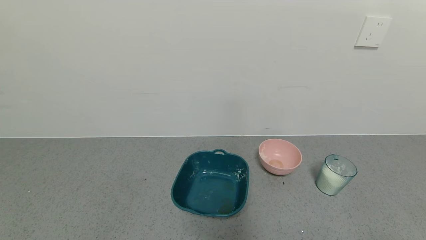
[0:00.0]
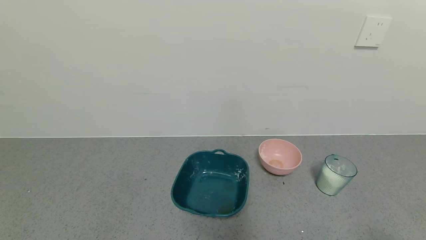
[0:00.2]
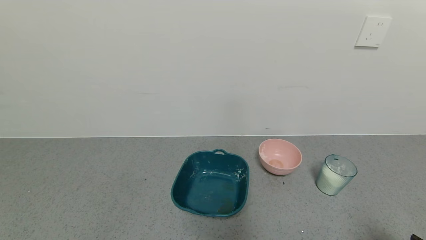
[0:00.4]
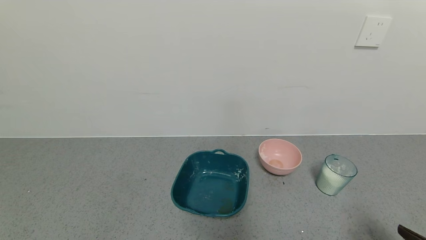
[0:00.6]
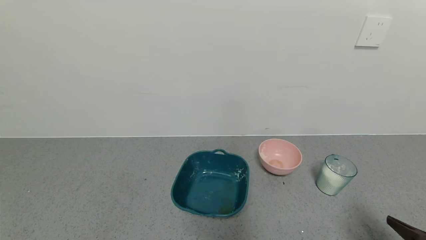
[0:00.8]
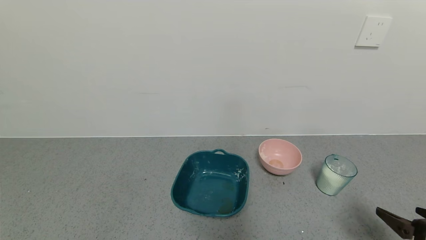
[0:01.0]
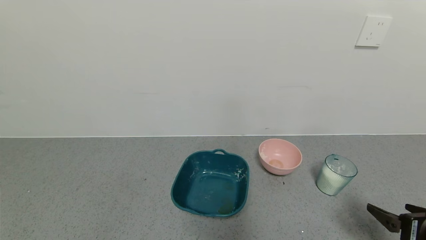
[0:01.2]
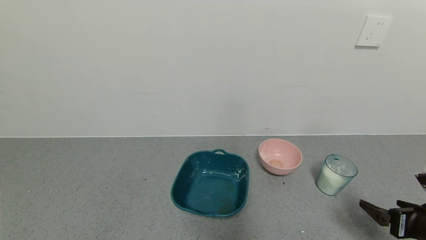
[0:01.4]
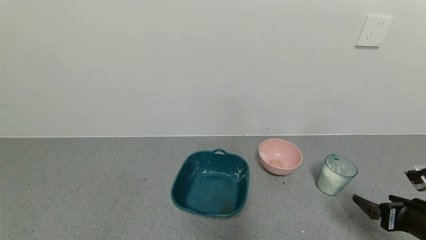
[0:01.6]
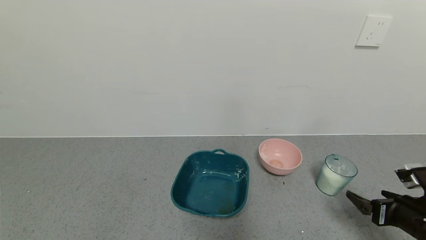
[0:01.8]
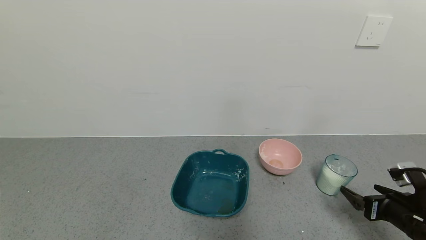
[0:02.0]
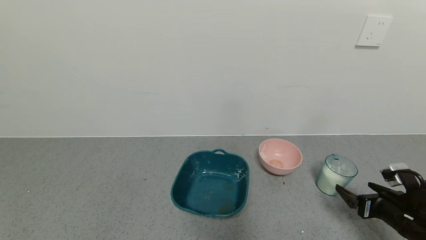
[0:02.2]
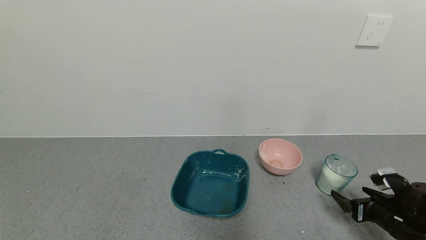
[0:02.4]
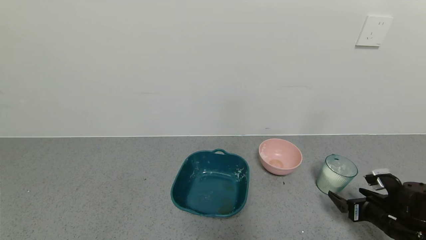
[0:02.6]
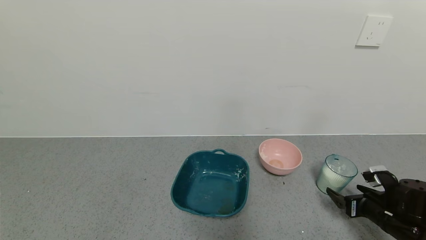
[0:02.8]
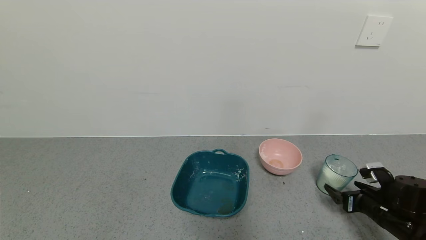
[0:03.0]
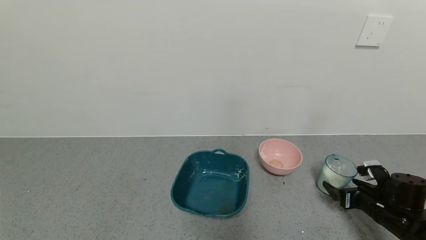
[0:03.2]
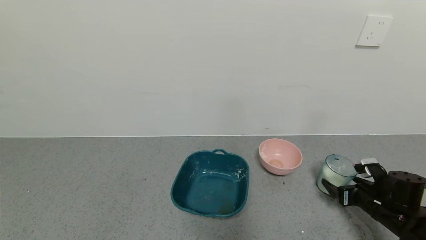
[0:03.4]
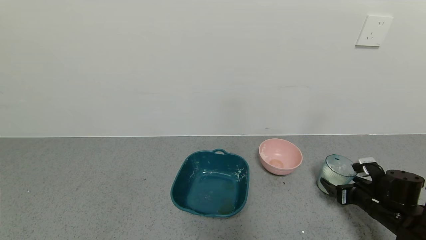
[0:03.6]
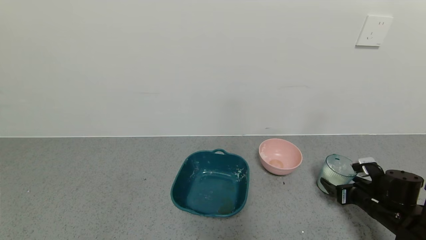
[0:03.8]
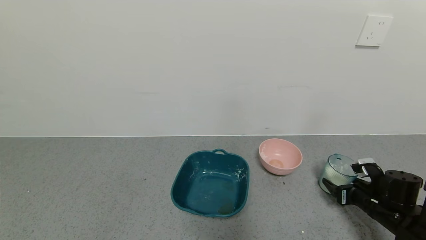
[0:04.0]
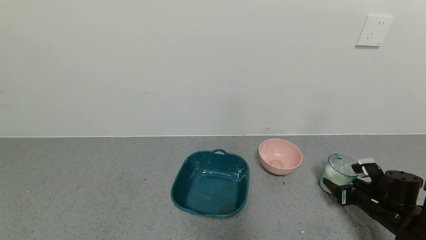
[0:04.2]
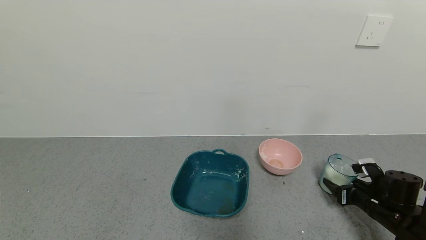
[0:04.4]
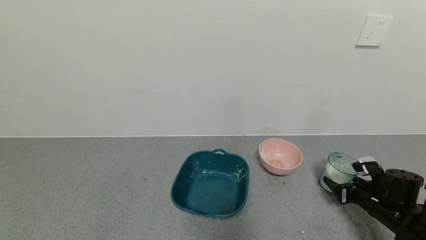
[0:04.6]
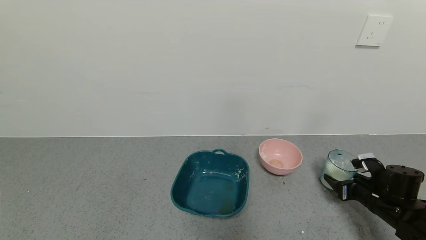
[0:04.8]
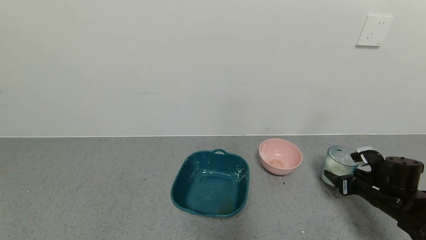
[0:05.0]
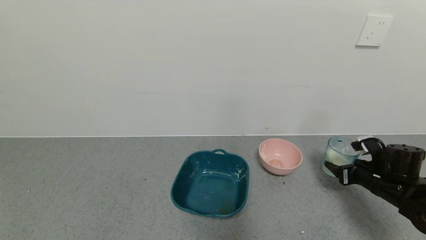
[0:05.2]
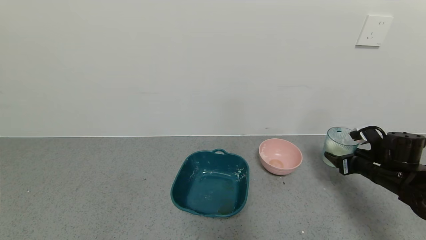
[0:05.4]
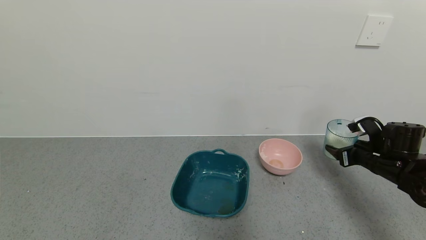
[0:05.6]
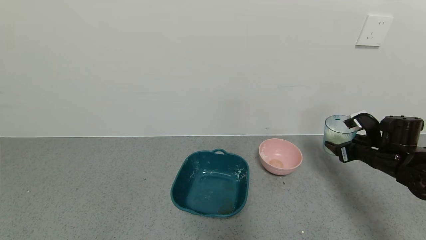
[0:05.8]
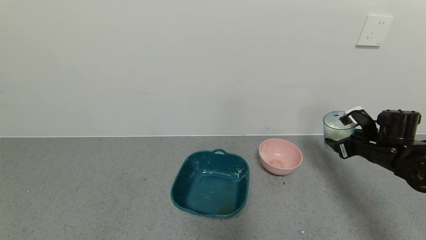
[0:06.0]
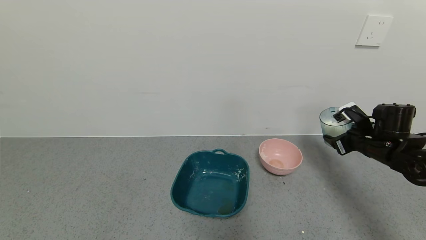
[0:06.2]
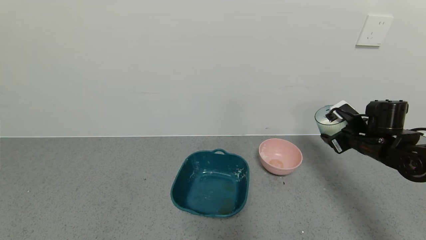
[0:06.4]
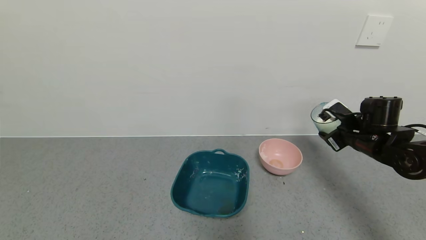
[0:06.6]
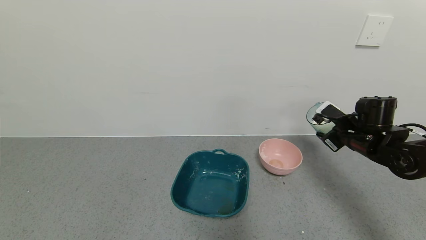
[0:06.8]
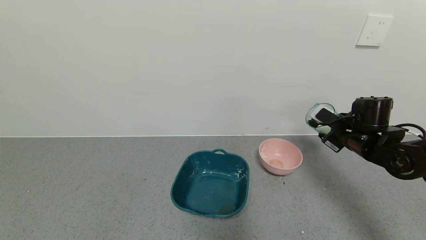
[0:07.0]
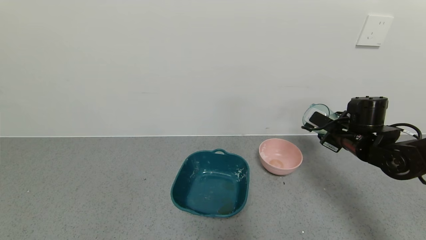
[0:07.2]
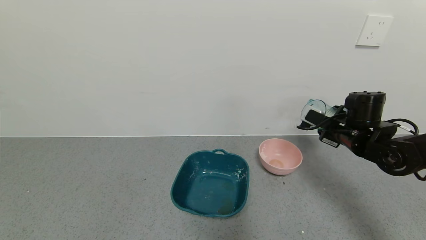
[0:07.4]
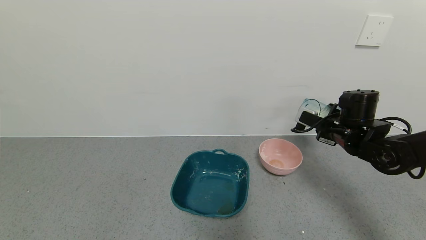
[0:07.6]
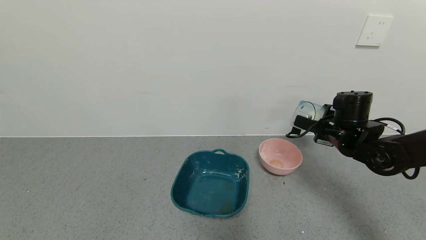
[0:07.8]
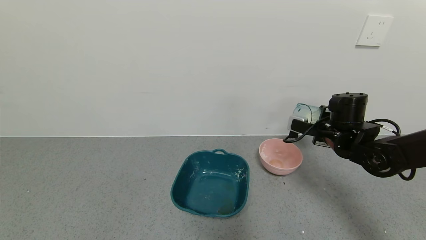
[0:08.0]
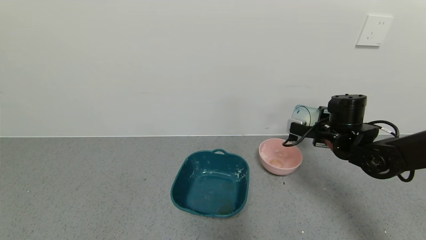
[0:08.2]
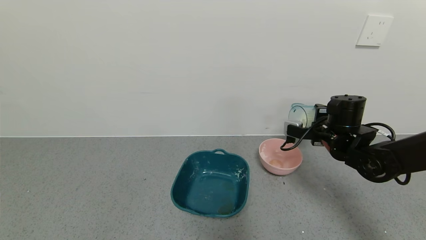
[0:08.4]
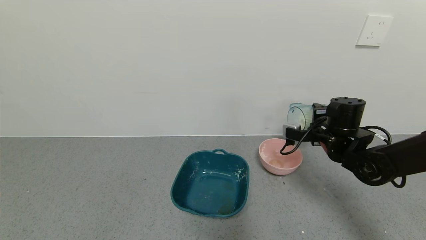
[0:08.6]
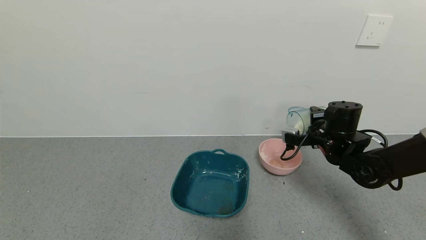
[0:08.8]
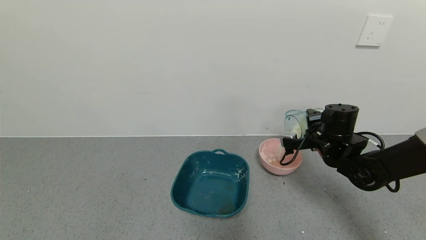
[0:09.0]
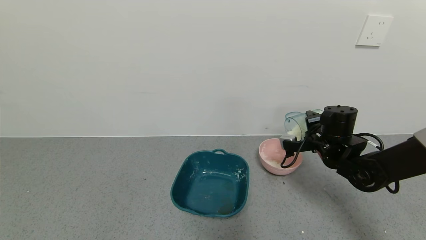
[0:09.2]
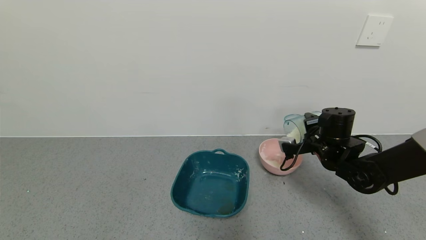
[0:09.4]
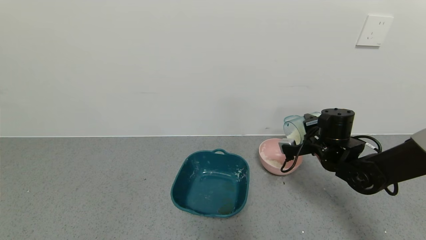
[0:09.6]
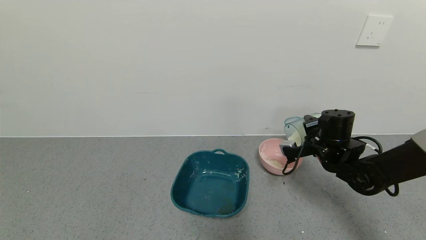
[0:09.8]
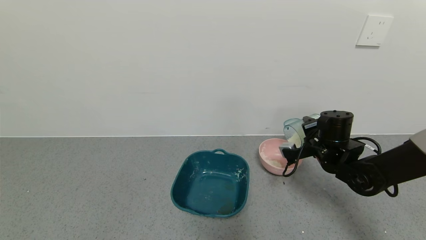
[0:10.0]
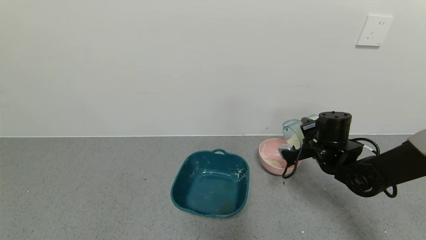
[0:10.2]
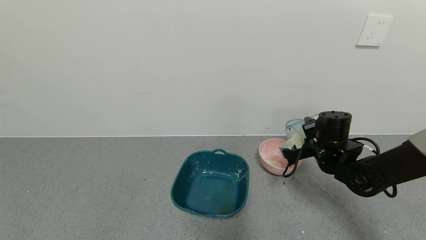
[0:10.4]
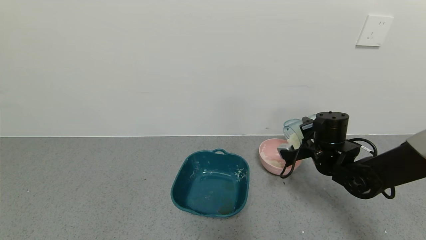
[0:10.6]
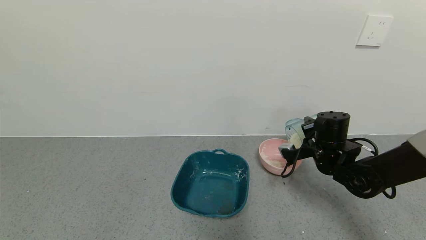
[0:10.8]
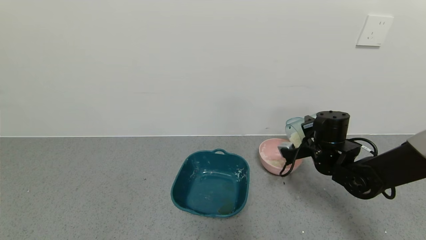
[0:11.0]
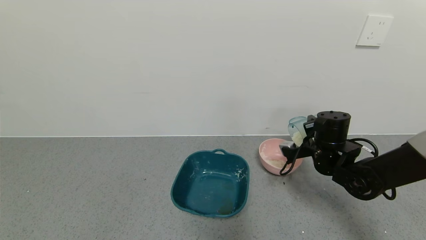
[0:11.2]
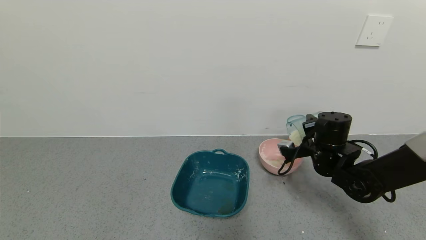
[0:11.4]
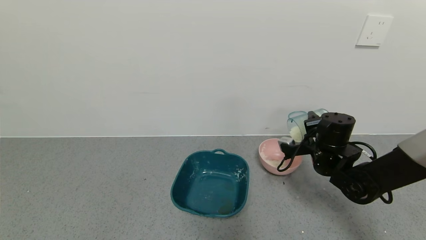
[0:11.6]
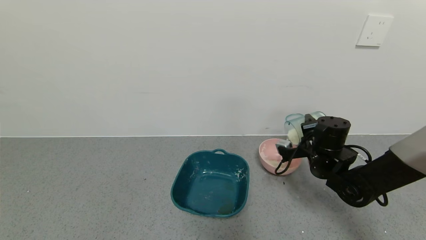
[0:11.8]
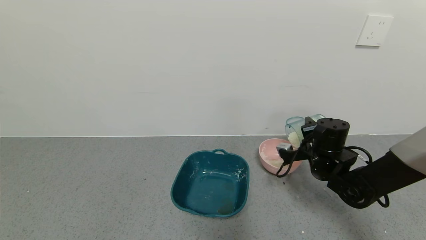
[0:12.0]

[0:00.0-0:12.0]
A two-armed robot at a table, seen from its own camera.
Task of the whole recording: use a gripper to pick up the cup and pour the powder into a bowl or tray.
Step, 0:00.0 to 0:04.0: Grasp the glass of powder with the right gripper.
0:00.0 to 0:01.6: The right gripper shifts approximately 15 cm forward.
0:01.6 to 0:03.0: The right gripper moves forward and downward, approximately 10 cm.
0:03.0 to 0:04.4: The right gripper closes.
0:04.4 to 0:06.0: The right gripper shifts about 15 cm upward and forward.
0:06.0 to 0:07.6: The right gripper goes some 10 cm to the left.
0:09.0 to 0:12.0: The grippers make only small movements.

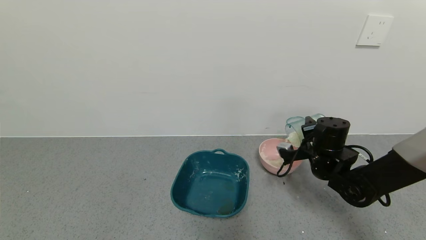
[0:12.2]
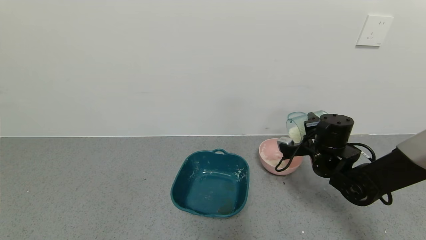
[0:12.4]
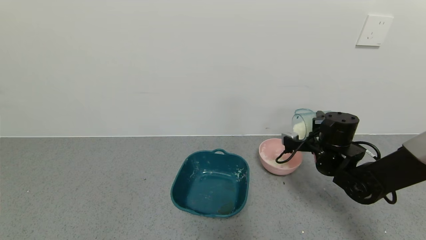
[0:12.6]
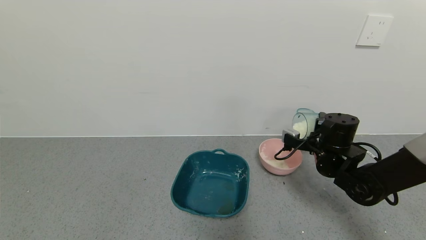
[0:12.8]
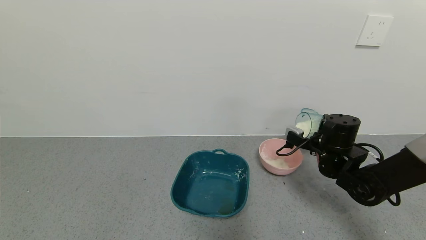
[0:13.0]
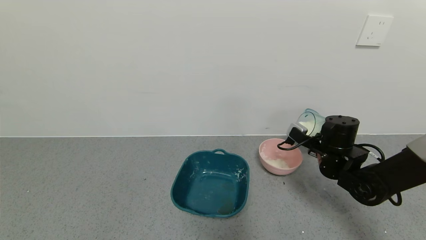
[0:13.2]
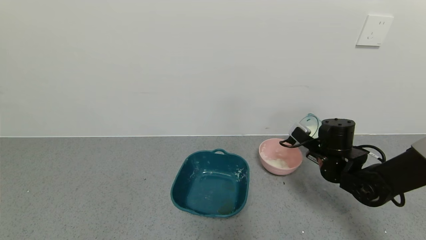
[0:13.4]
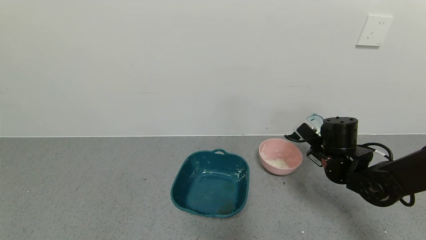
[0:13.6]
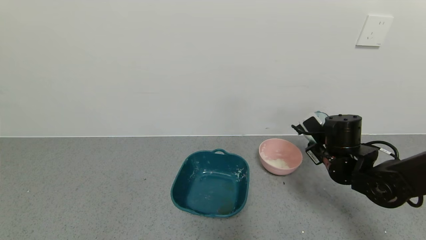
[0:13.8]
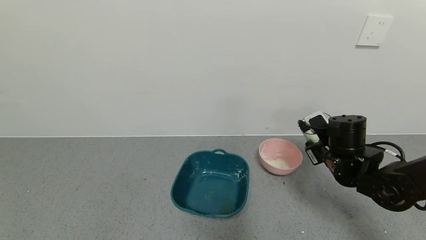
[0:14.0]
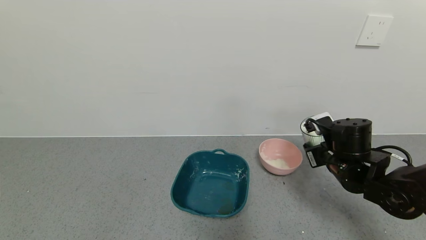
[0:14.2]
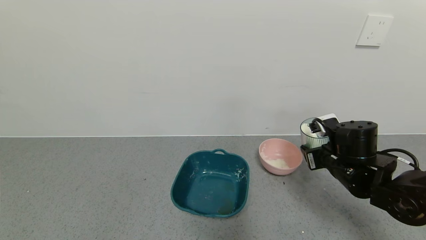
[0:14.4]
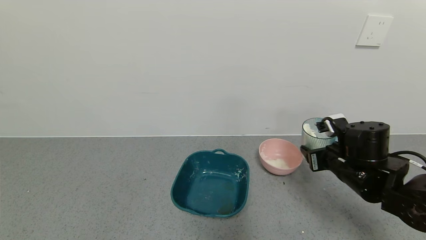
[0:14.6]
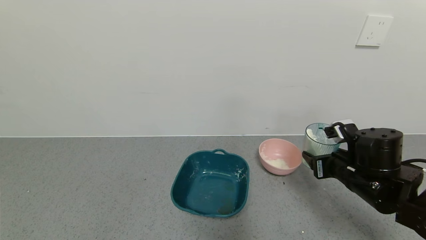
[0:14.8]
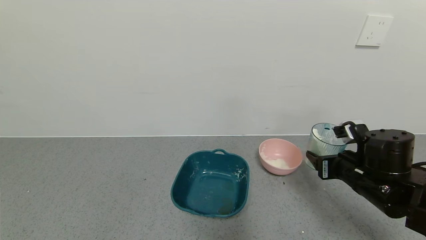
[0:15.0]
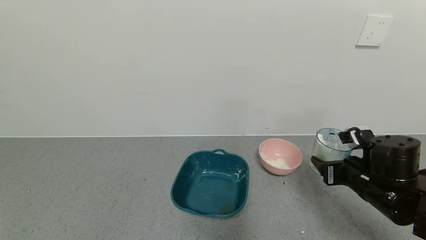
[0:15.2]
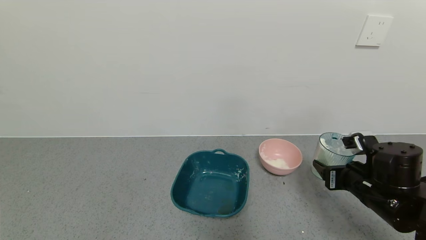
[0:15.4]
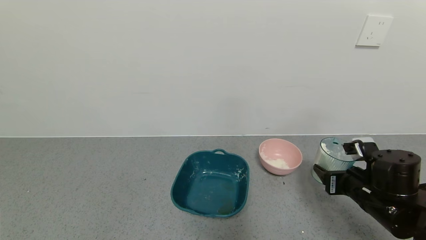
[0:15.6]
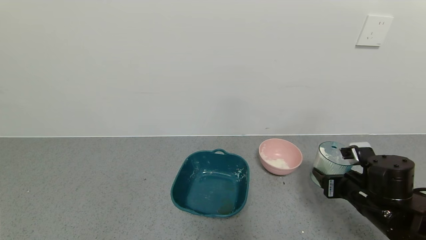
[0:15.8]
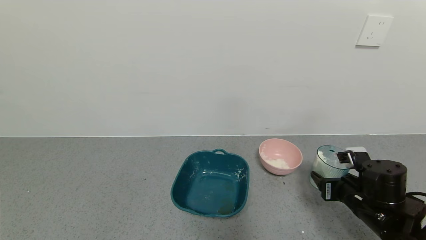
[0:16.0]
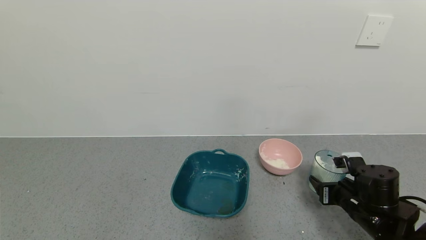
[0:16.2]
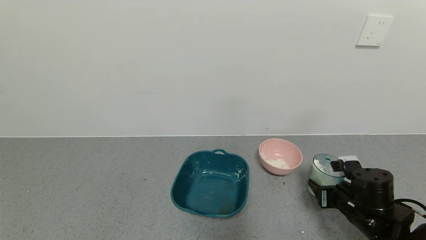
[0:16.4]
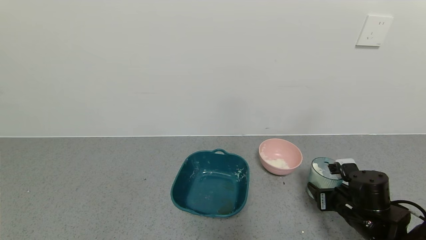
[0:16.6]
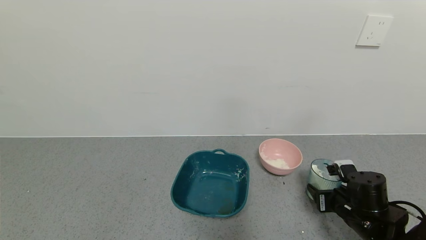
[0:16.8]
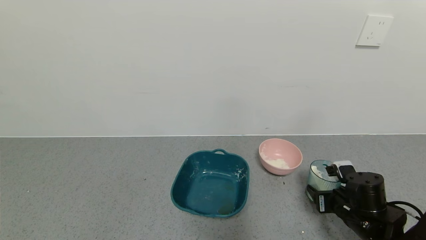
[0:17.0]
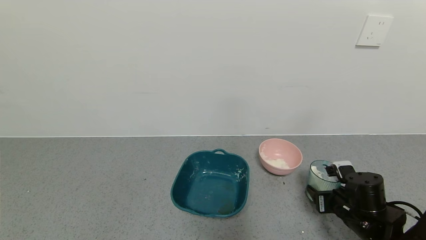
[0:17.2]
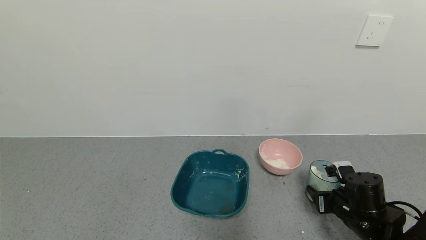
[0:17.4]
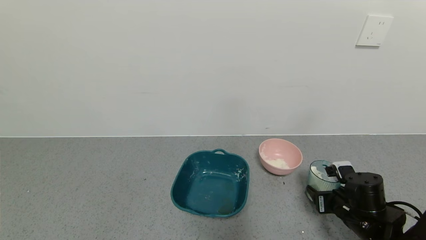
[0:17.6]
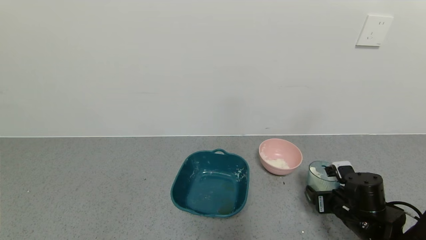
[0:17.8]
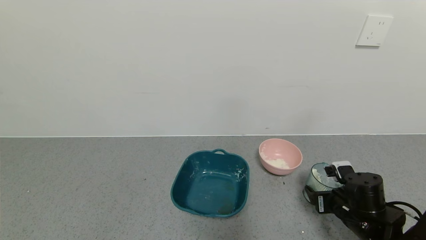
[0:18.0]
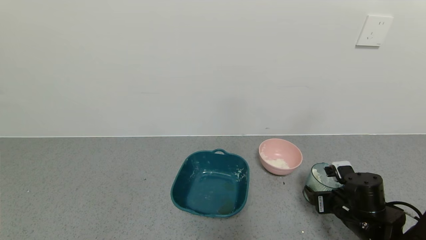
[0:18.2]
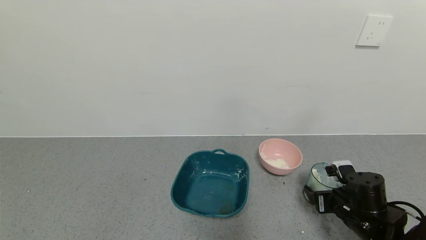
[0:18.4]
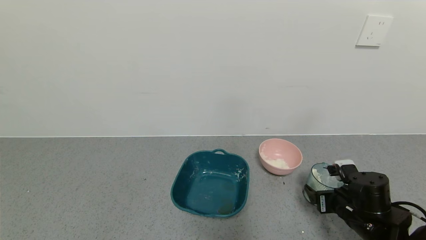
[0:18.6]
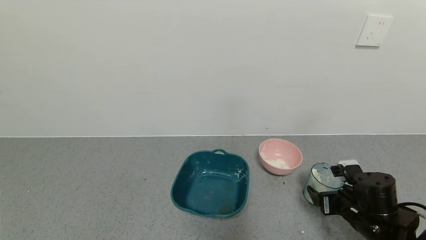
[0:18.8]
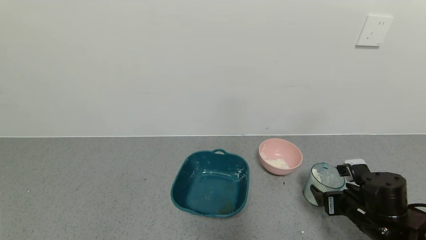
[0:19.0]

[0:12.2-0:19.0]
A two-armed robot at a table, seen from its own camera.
Task of the whole recording: use a gripper to pick up the cup and pour the powder into a bowl or tray.
0:13.6 to 0:15.0: The right gripper moves backward, roughly 10 cm.
0:15.0 to 0:16.2: The right gripper moves downward, approximately 5 cm.
0:16.2 to 0:17.6: The grippers move only a little.
0:17.6 to 0:19.0: The right gripper opens.